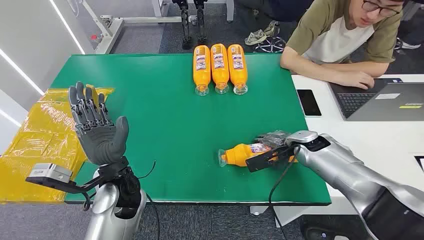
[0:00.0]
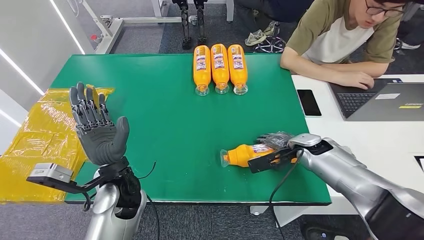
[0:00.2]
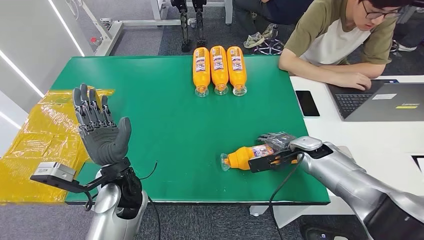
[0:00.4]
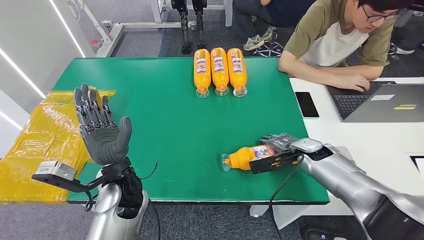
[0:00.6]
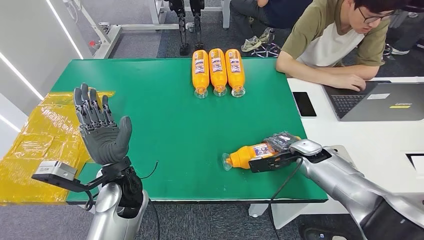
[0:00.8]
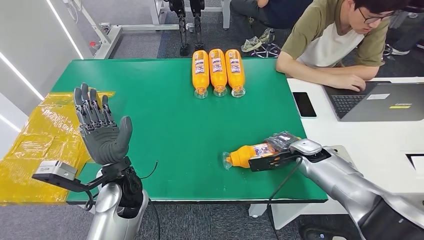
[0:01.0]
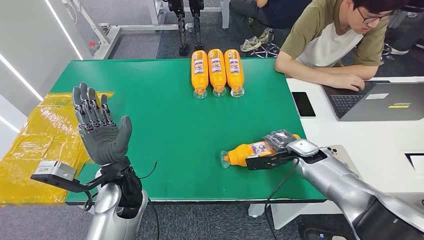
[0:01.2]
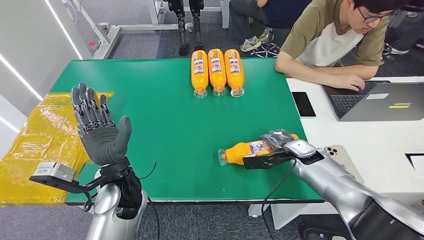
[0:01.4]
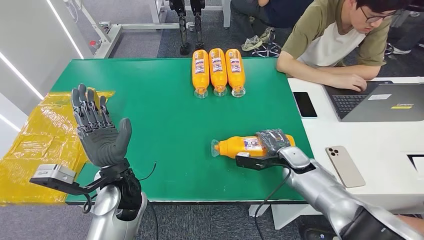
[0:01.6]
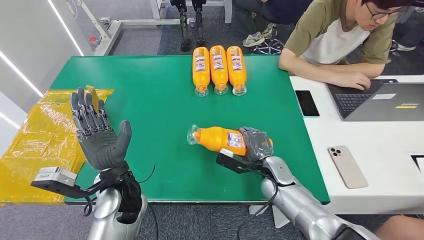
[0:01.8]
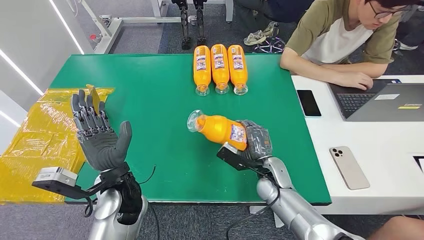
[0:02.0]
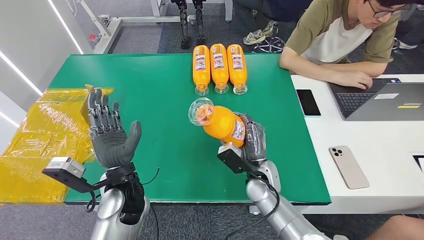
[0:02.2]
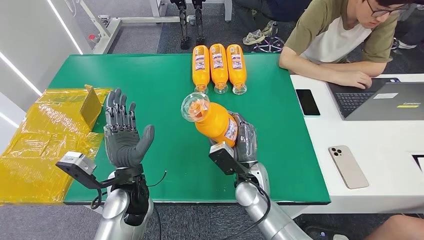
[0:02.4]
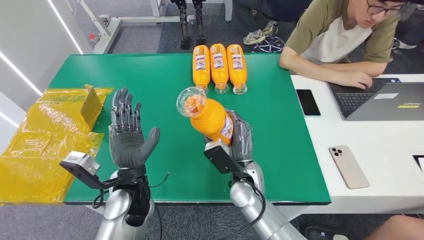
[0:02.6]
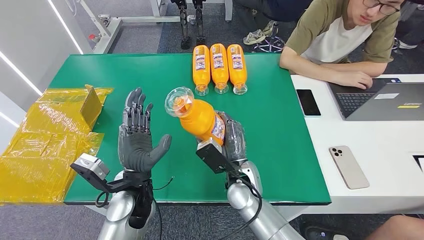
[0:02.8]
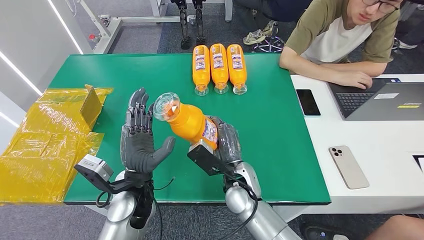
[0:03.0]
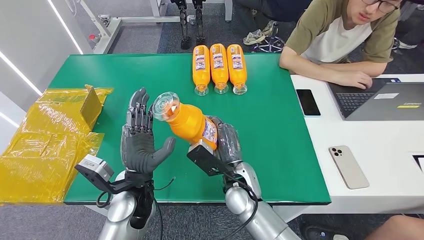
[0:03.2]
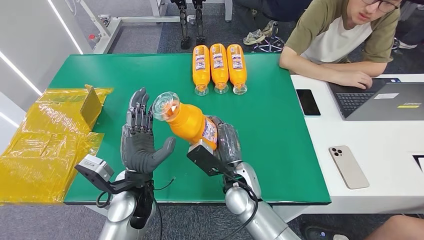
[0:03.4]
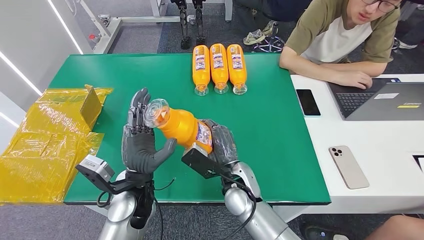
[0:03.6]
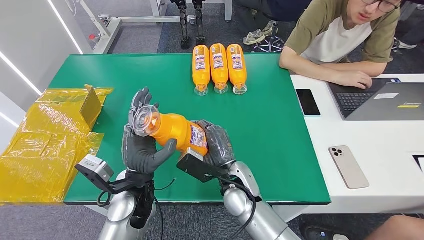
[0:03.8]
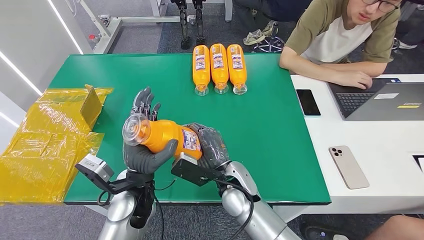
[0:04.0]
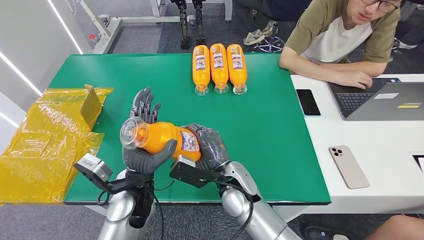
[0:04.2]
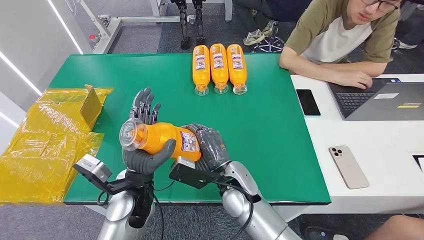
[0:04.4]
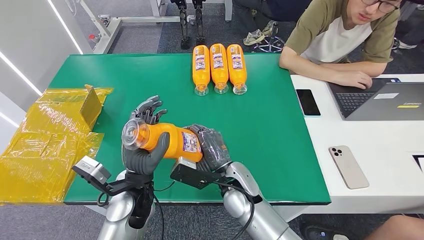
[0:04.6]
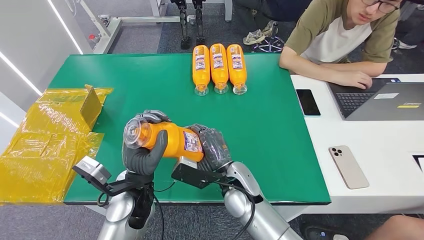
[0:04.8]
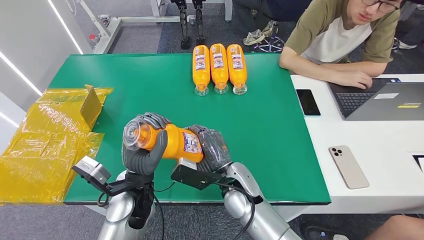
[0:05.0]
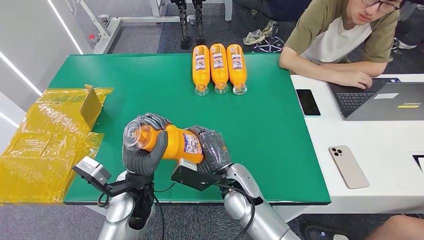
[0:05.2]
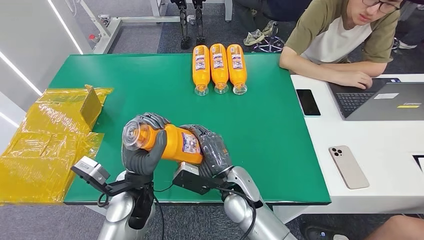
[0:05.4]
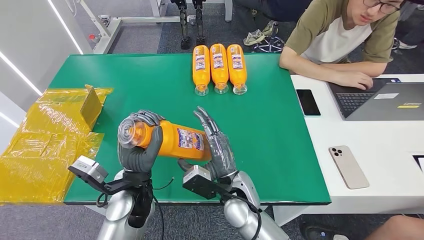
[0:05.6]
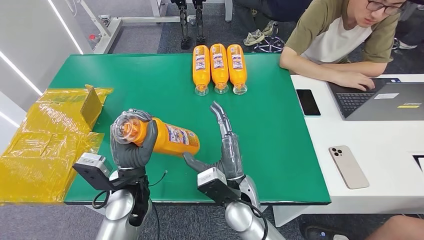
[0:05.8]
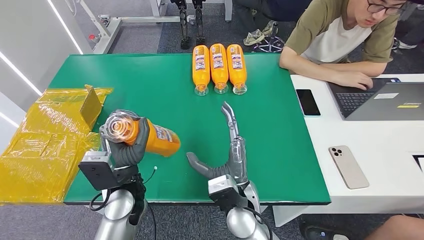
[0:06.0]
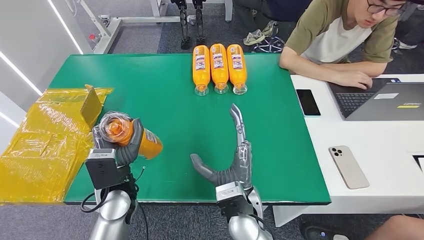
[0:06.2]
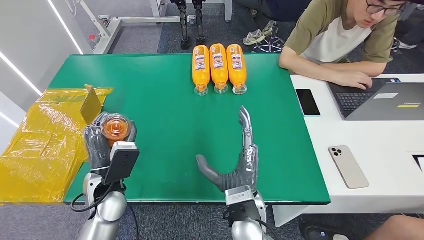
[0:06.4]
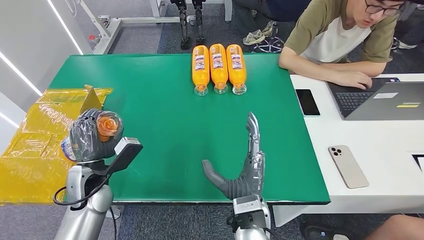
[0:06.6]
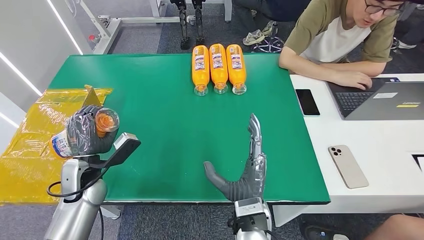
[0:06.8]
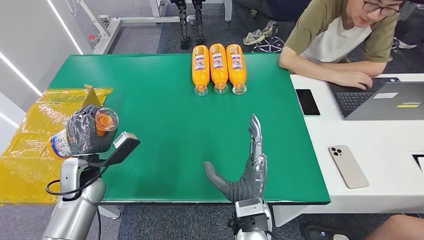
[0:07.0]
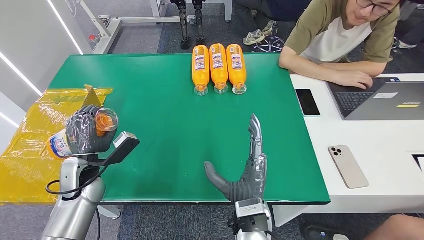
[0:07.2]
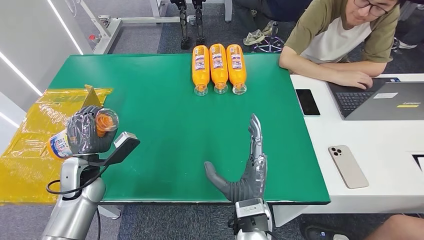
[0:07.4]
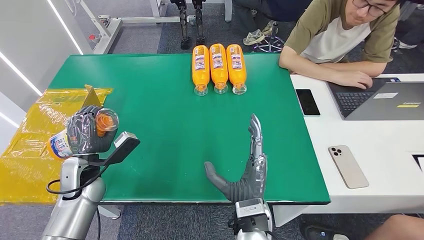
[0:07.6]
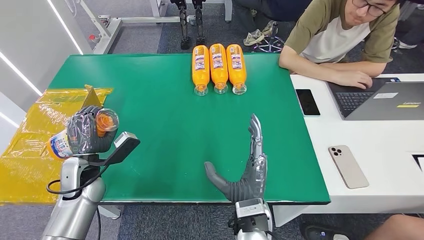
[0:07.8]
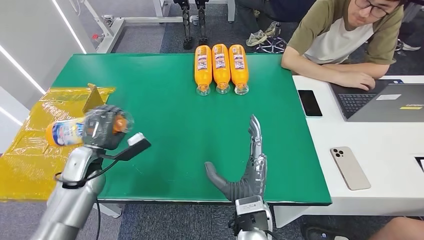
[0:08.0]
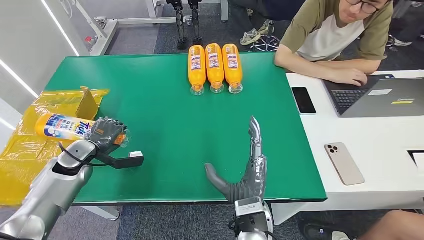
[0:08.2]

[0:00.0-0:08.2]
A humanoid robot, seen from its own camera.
Step, 0:00.0 to 0:03.2: Pick up the bottle from the table.
Step, 0:03.4 to 0:08.0: Turn the bottle to the front side.
0:03.2 to 0:05.0: The hands make only small movements.
0:05.0 to 0:06.6: The left hand is displaced to the left by some 15 cm. The right hand moves backward, roughly 10 cm.
